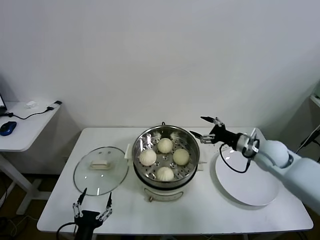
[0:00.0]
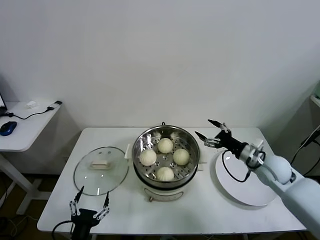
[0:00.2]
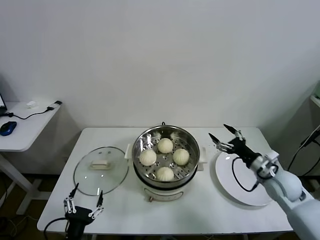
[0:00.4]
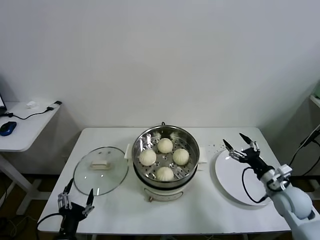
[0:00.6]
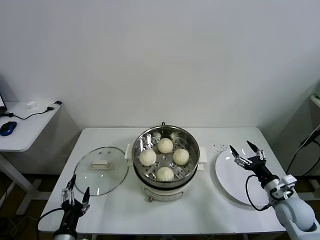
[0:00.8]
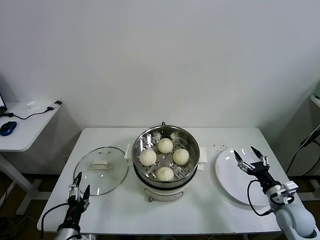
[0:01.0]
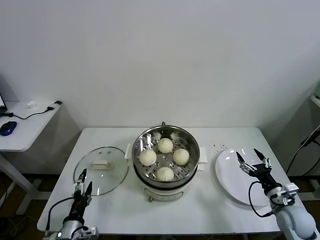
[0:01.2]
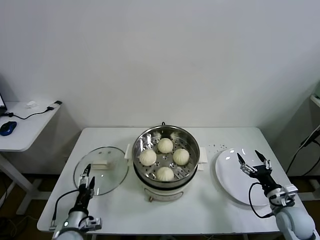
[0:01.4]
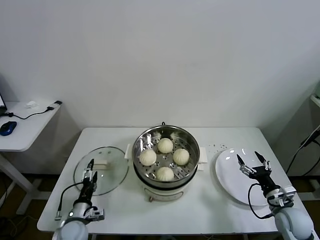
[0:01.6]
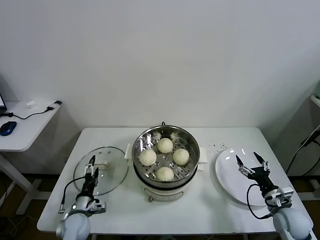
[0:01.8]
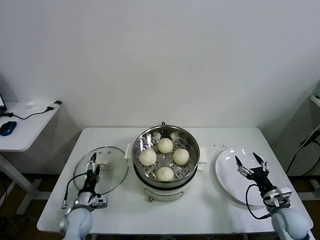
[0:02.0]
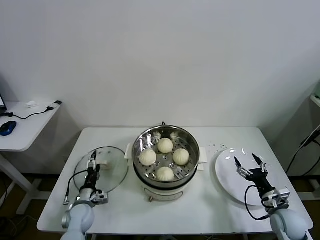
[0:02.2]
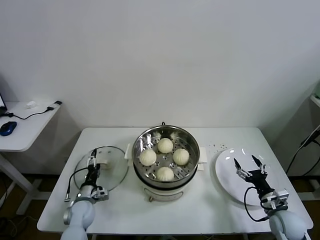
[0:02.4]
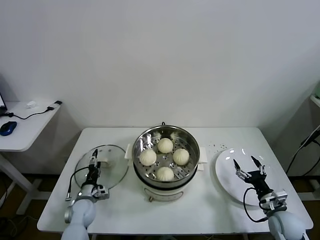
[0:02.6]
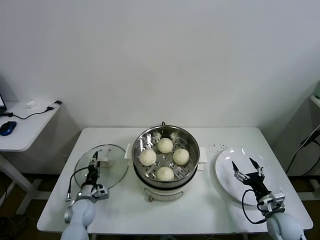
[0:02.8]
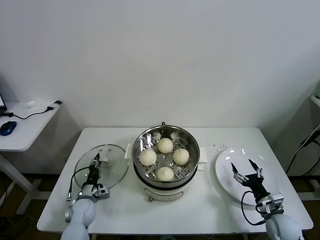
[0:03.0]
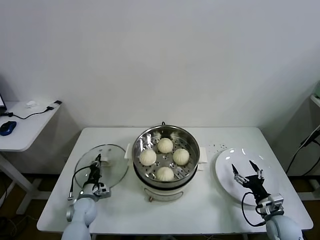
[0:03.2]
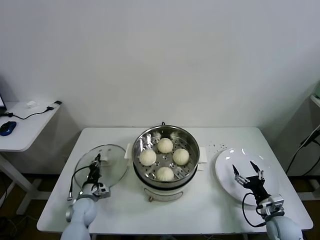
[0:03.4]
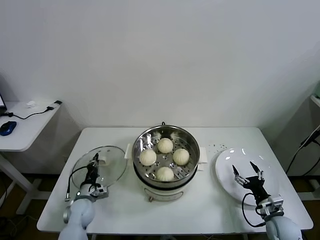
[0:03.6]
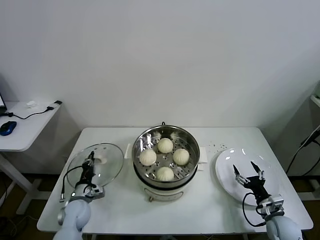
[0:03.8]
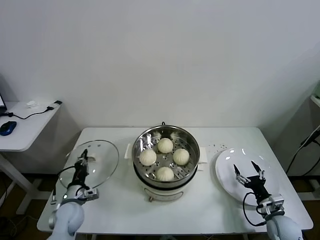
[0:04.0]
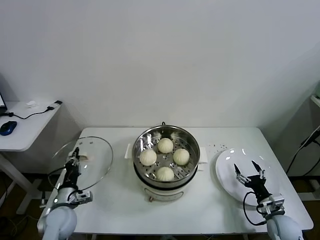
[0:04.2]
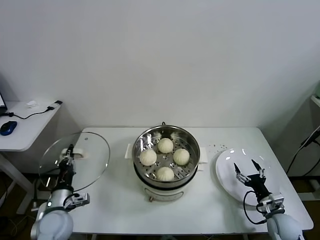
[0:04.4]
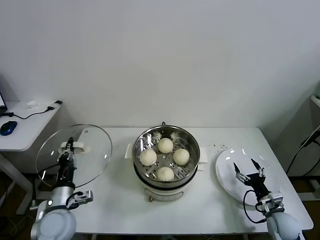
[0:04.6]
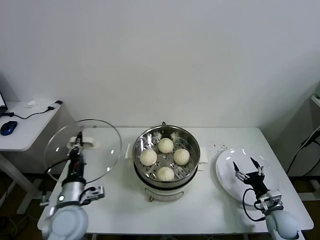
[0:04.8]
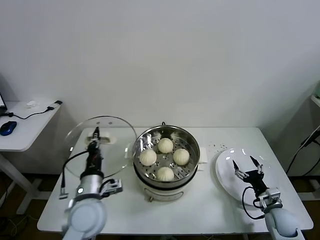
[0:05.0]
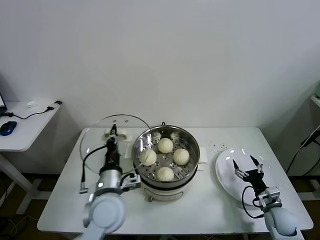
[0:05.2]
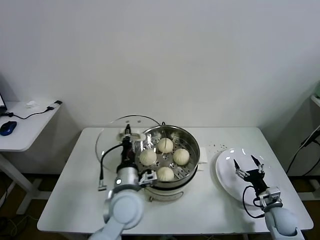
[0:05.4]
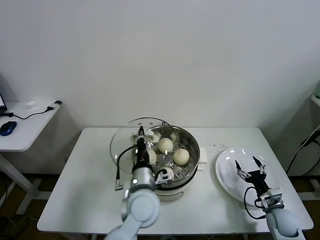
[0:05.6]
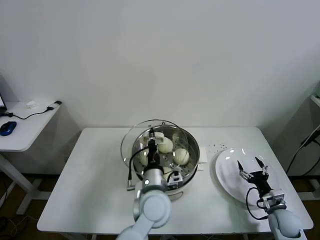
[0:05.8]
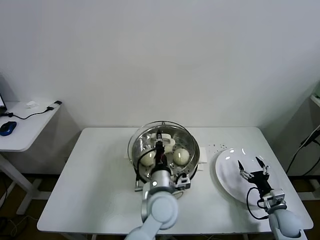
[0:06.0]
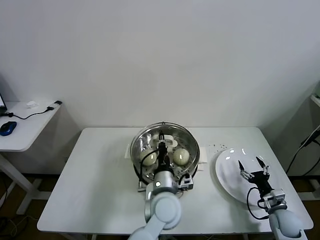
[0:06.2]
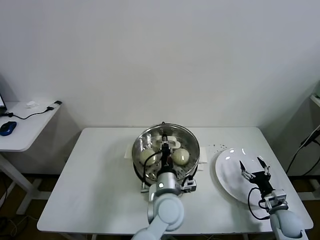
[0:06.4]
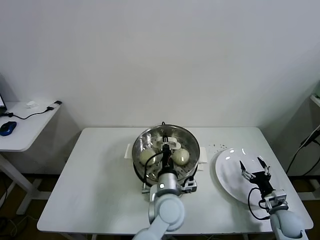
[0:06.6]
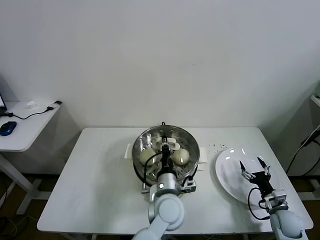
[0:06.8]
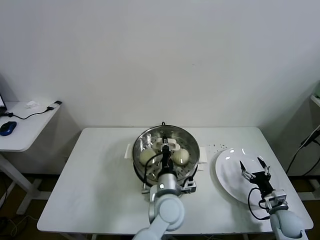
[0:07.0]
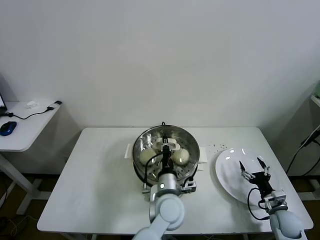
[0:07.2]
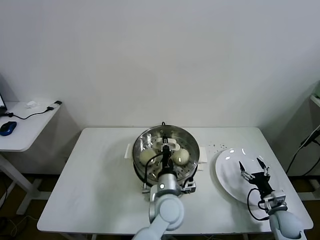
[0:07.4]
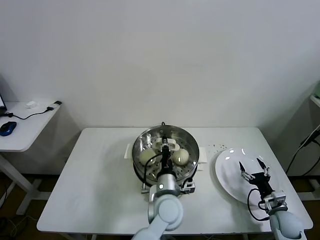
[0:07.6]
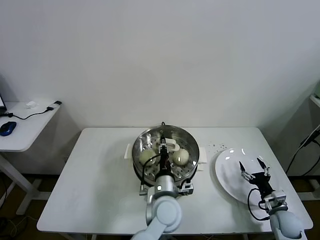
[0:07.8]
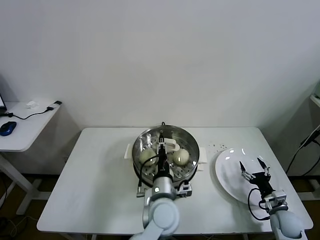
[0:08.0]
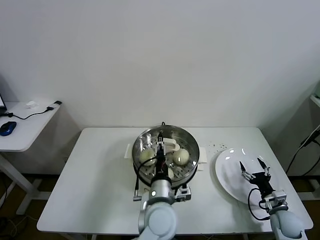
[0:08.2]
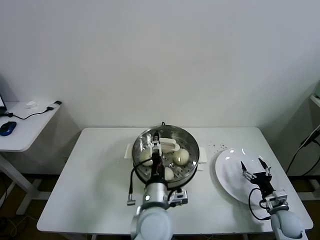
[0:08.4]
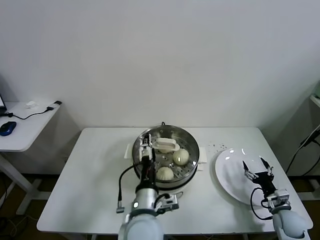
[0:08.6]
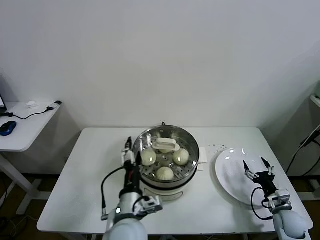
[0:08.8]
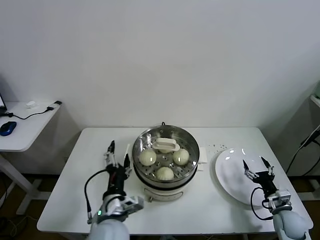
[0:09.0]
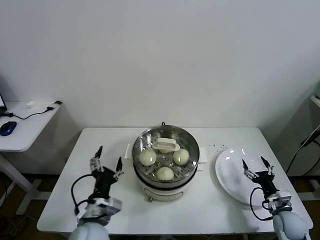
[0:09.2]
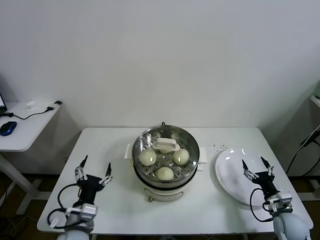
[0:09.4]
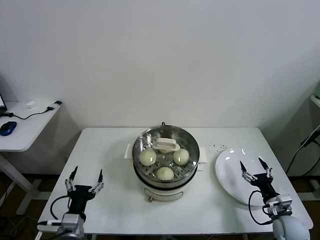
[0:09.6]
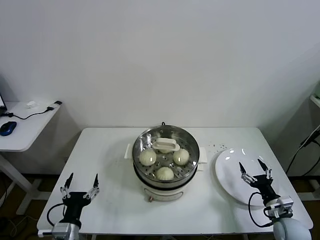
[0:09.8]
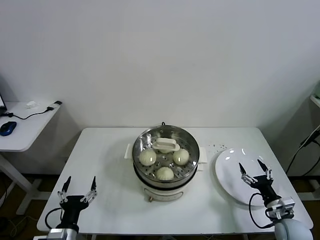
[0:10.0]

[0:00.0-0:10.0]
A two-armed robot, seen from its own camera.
Task of the whole recording: take steamed baozi put them in steamer.
Step, 0:00.0 to 0:03.4: Grasp the pot lid with left gripper.
Step, 0:03.6 to 0:08.4: Place the pot lid on the steamer with left gripper.
0:00.0 to 0:01.4: The right gripper moves backward, downward and to the right, roughly 25 cm. Meanwhile the left gripper travels forward, to the left and downward by roughly 15 cm.
0:01.4 to 0:02.8: The left gripper heads forward and downward, covering roughly 15 cm.
0:02.8 to 0:04.2: The left gripper shifts approximately 10 cm upward, and closes.
0:04.2 to 0:05.8: The left gripper travels to the right and upward by about 35 cm.
0:05.8 to 0:07.2: The left gripper is displaced to the right by about 5 cm.
0:07.2 to 0:08.6: The left gripper travels backward and to the left by roughly 10 cm, and opens.
0:08.6 to 0:10.0: The left gripper moves to the left and downward, approximately 25 cm; the right gripper ends up some 5 cm from where it was.

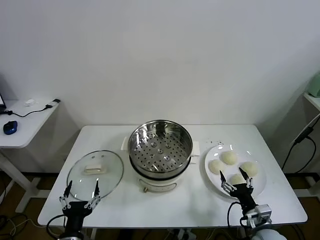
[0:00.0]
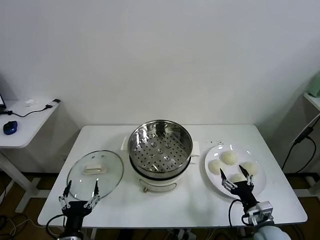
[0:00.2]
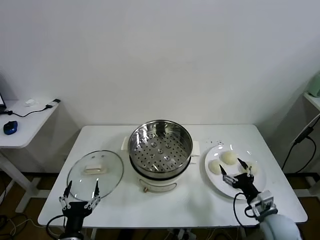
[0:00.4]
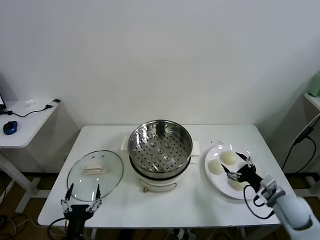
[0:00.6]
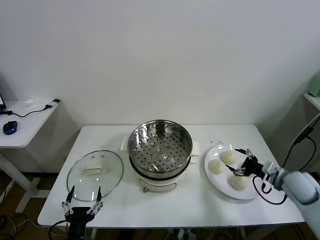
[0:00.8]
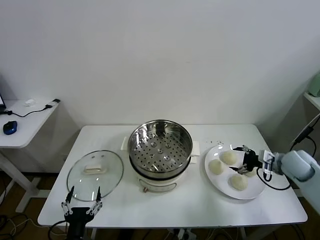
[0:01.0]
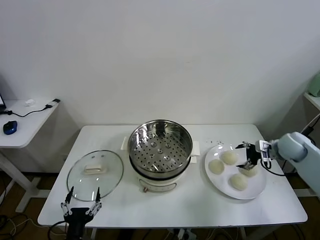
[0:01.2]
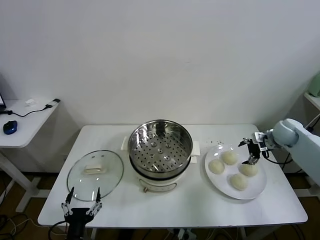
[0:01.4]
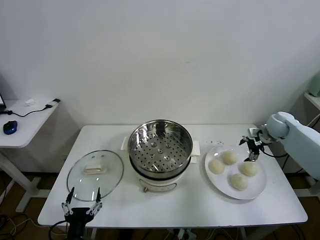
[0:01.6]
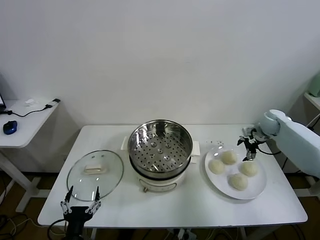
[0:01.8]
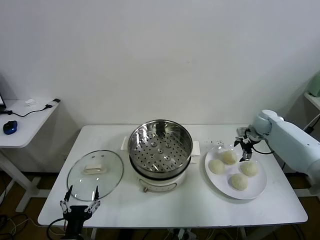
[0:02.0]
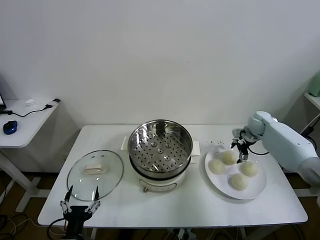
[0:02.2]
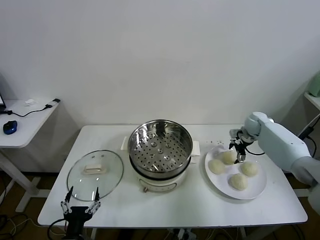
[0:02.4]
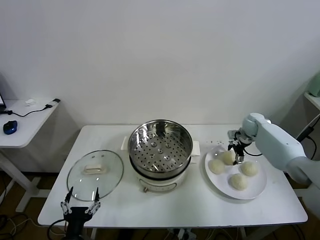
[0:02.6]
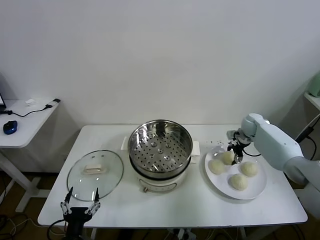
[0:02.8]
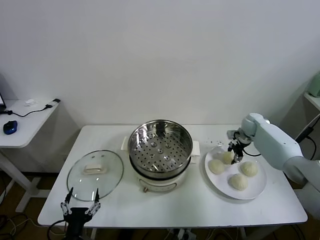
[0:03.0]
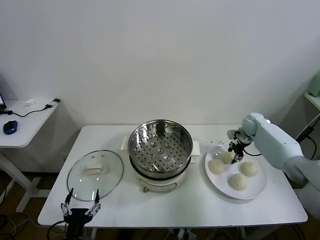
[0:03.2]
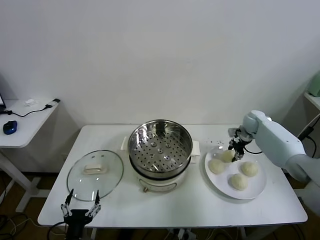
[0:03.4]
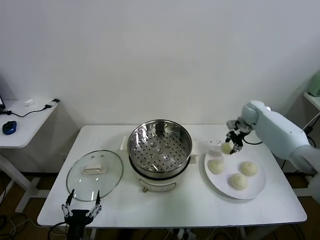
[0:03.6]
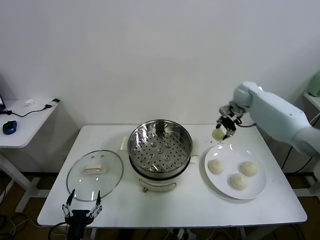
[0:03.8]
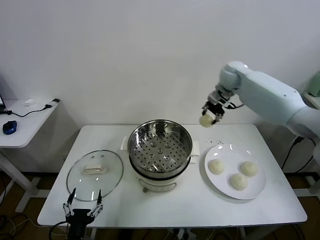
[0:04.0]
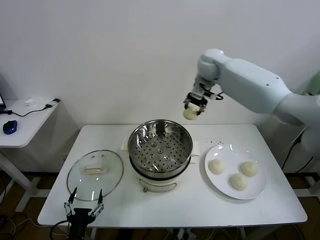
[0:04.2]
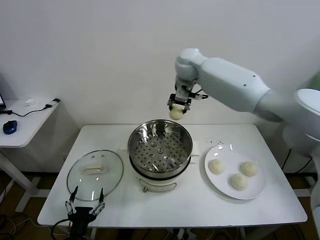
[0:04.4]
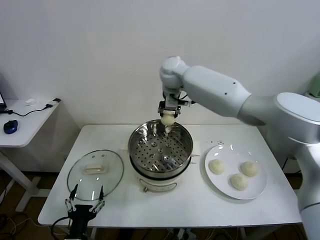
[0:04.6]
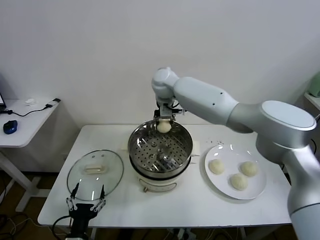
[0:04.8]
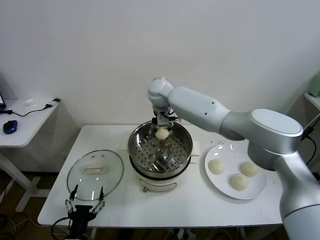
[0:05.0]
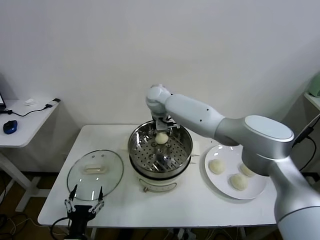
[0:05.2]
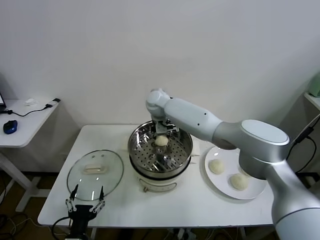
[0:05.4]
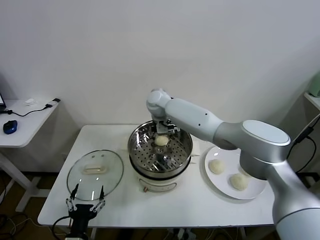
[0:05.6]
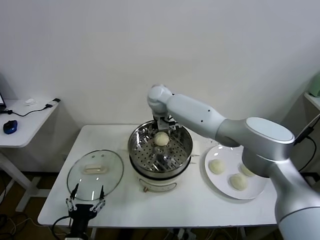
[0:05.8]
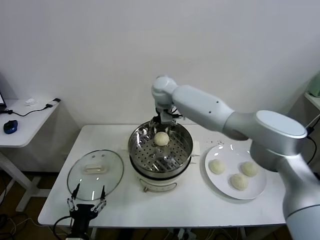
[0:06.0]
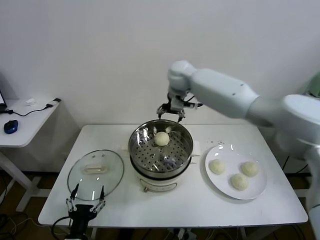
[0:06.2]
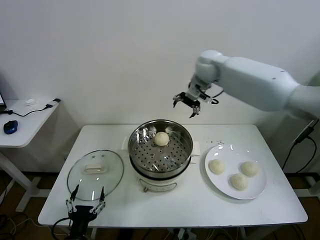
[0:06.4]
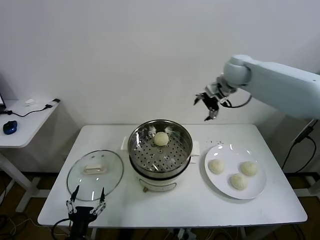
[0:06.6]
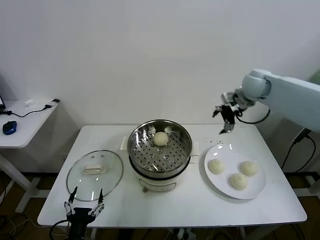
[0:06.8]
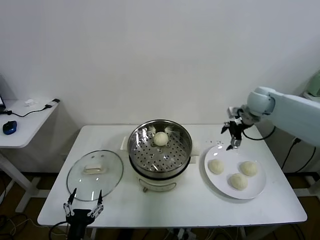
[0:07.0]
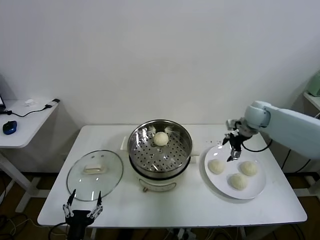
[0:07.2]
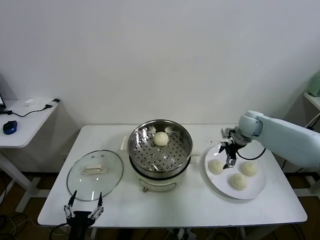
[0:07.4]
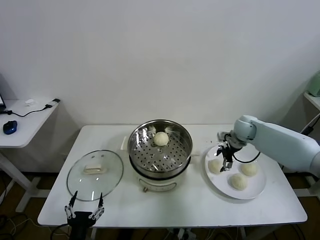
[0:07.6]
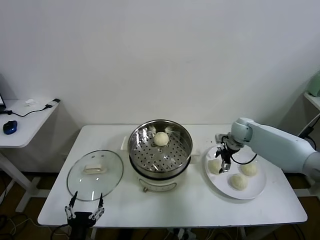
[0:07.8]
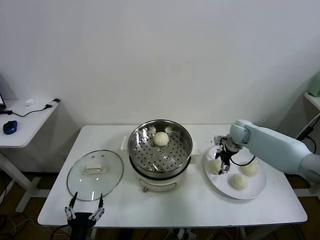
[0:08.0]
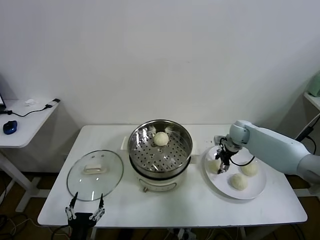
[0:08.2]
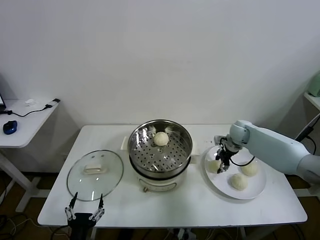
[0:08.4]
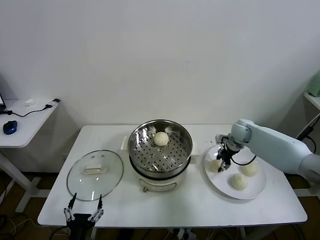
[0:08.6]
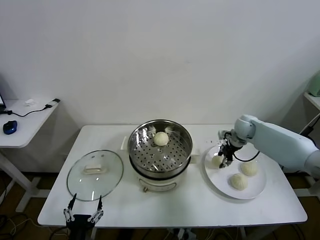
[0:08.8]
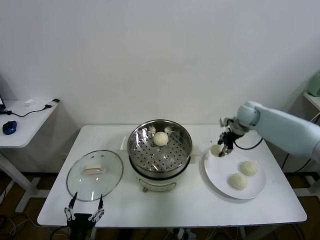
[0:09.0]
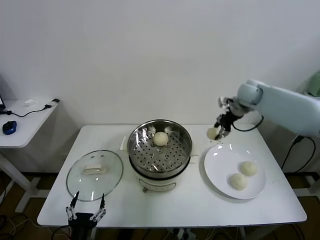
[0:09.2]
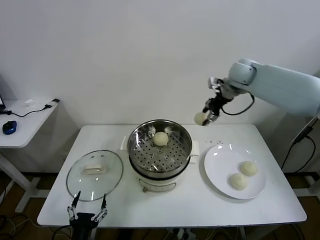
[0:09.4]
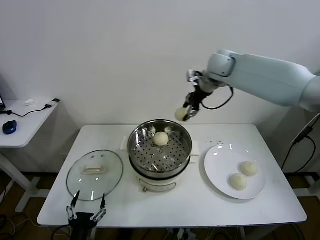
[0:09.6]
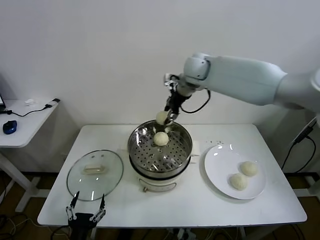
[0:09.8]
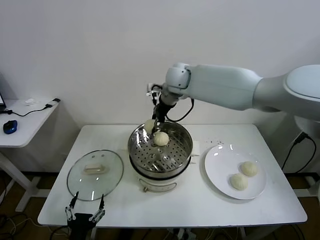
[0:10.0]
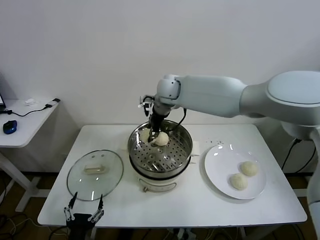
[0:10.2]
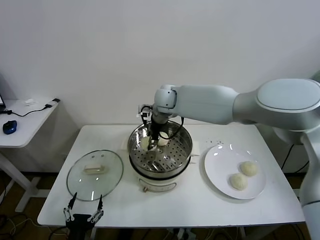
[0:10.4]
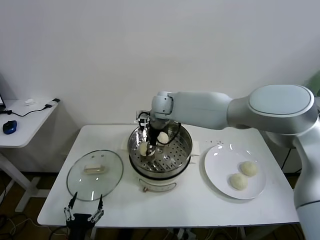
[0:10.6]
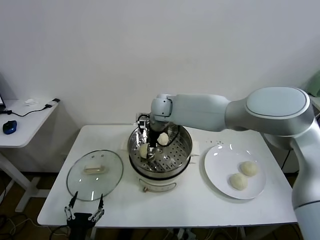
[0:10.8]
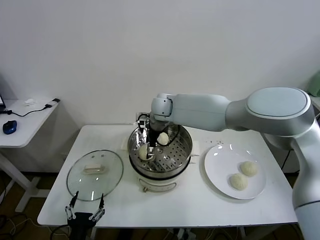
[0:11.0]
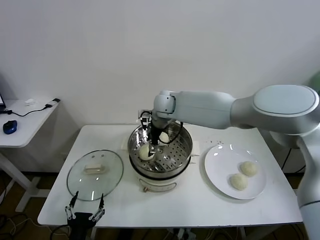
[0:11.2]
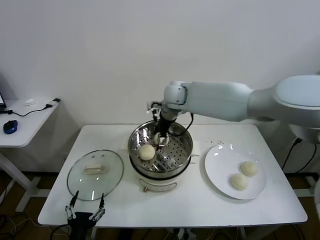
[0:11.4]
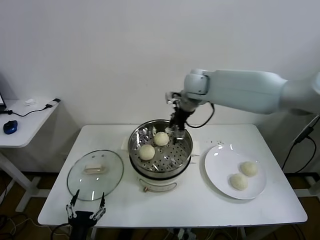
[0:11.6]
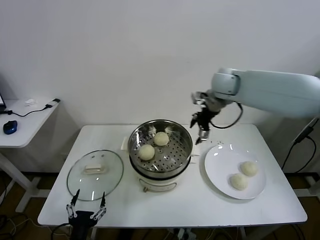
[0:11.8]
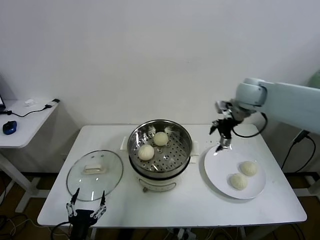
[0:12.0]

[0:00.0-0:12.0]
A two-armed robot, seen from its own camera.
Task of the whole recording: take steamed baozi put them in steamer.
Step, 0:00.0 to 0:03.0: Grasp the baozi in the plate with right gripper.
Step, 0:03.4 to 0:05.8: Place the baozi on the steamer with right gripper.
Step, 0:06.0 to 0:08.2: Grasp the baozi in the plate with right gripper.
Step, 0:08.6 to 0:11.2: Place the baozi on the steamer with right gripper.
0:01.6 to 0:03.0: The right gripper heads downward and forward, covering some 10 cm, and closes its fingers.
0:03.0 to 0:04.4: The right gripper goes about 40 cm to the left and upward.
0:04.4 to 0:06.0: The right gripper moves downward, approximately 5 cm, and opens.
0:06.0 to 0:07.6: The right gripper moves to the right and downward, roughly 35 cm.
0:07.6 to 0:09.0: The right gripper goes some 10 cm upward, and closes up.
0:09.0 to 0:10.4: The right gripper heads to the left, covering roughly 30 cm.
0:10.4 to 0:12.0: The right gripper shifts about 30 cm to the right, and opens up.
